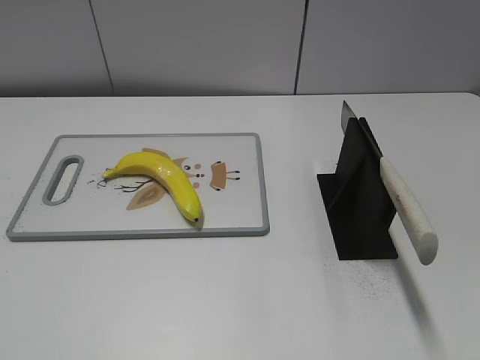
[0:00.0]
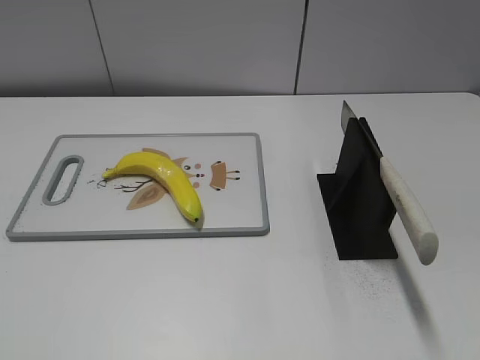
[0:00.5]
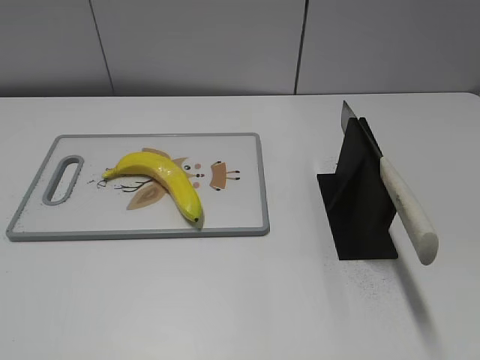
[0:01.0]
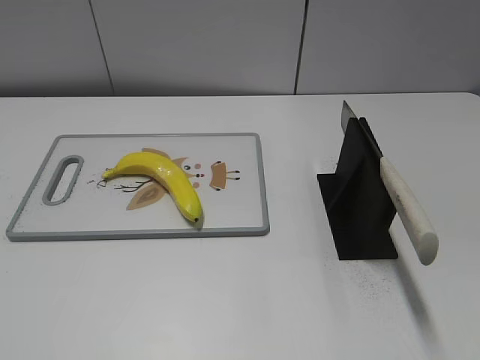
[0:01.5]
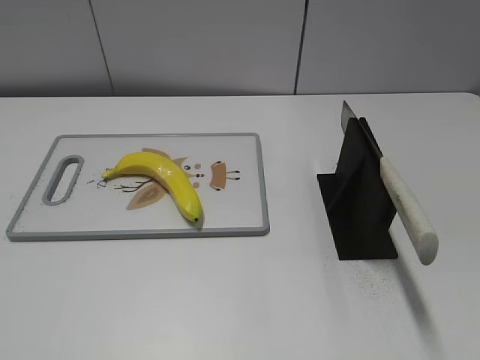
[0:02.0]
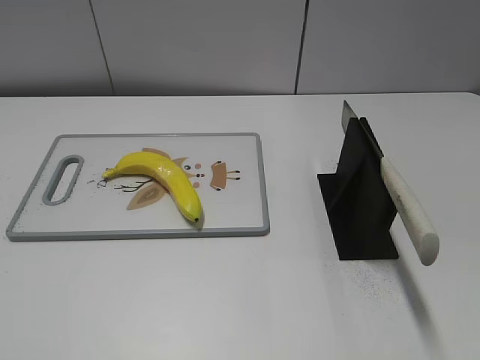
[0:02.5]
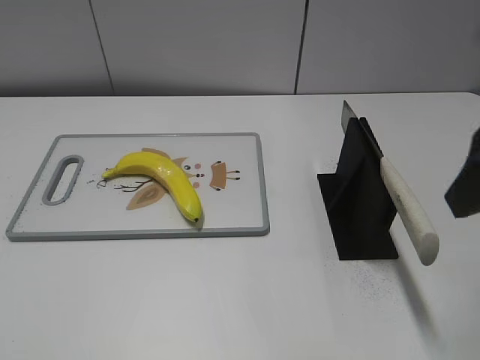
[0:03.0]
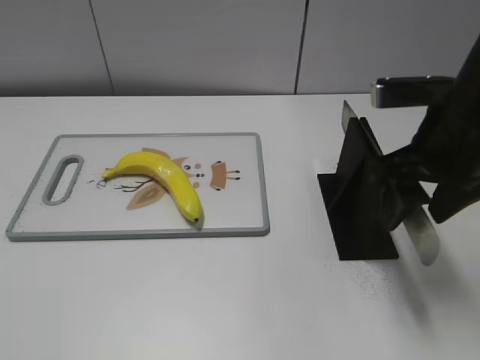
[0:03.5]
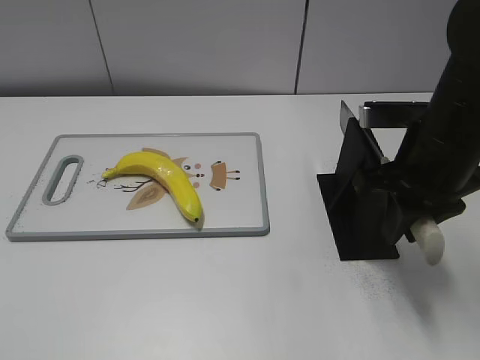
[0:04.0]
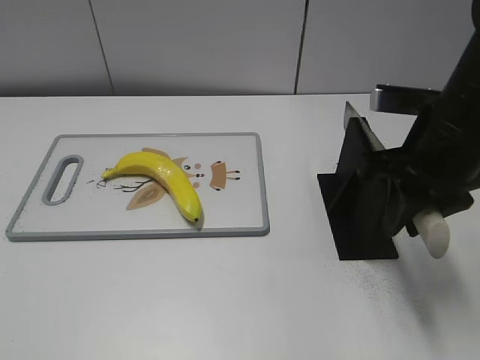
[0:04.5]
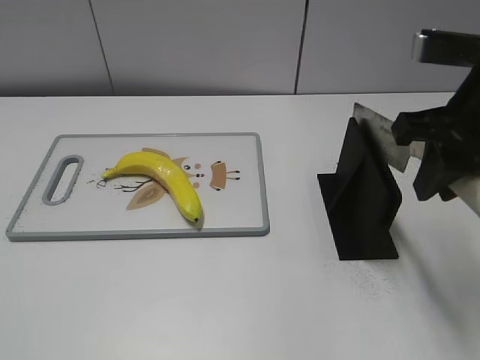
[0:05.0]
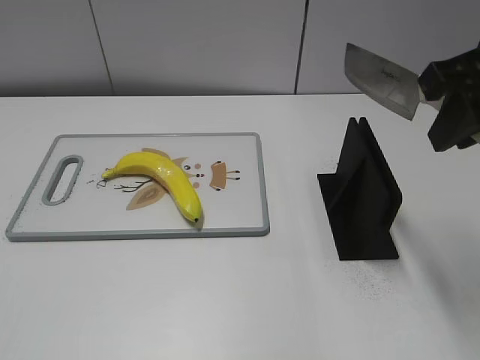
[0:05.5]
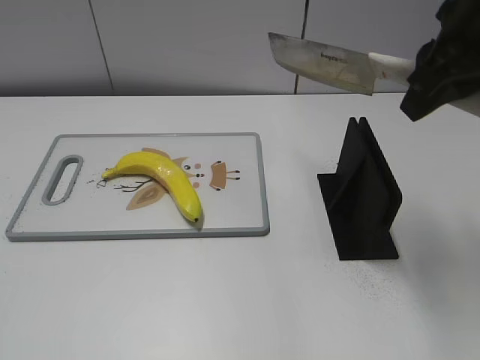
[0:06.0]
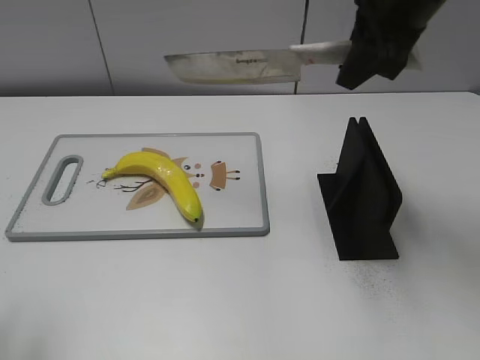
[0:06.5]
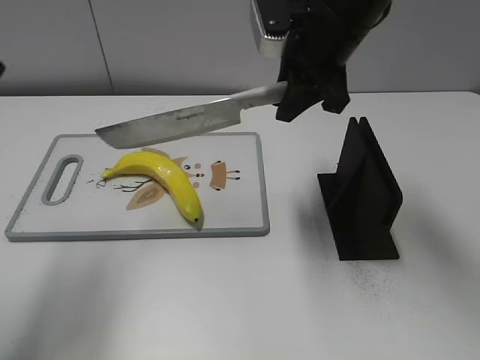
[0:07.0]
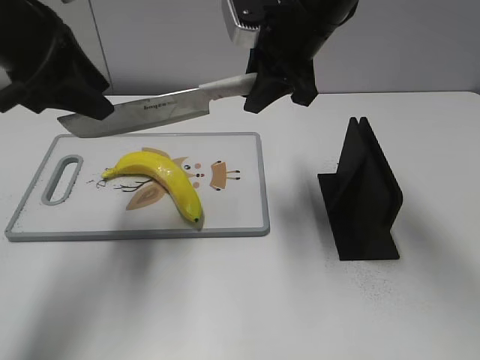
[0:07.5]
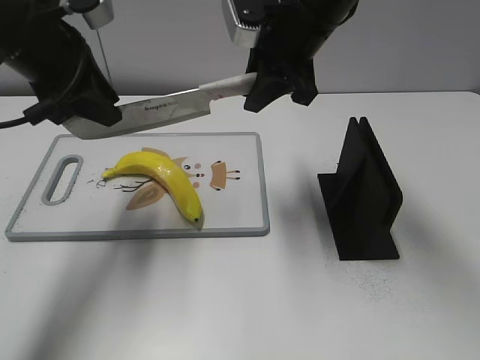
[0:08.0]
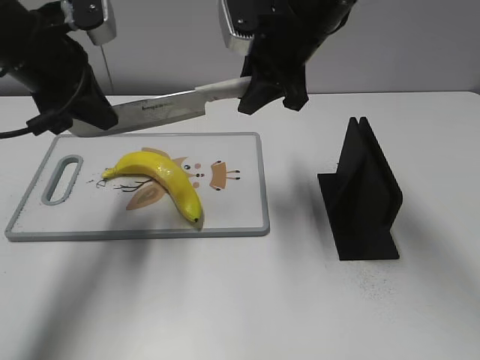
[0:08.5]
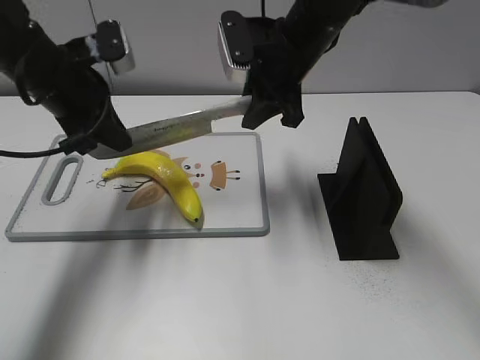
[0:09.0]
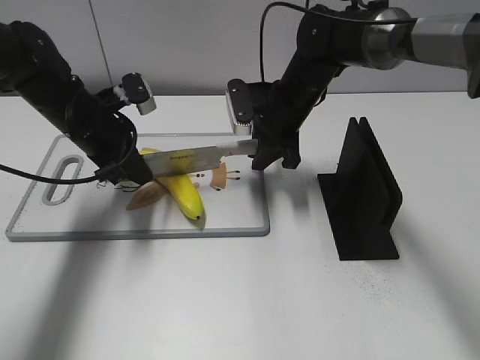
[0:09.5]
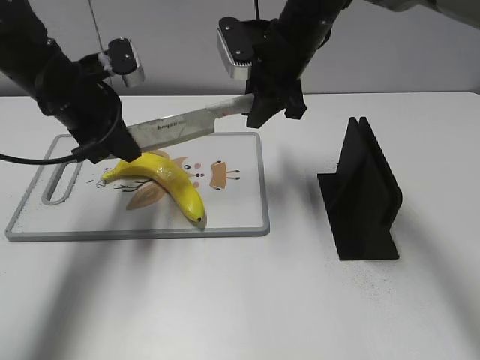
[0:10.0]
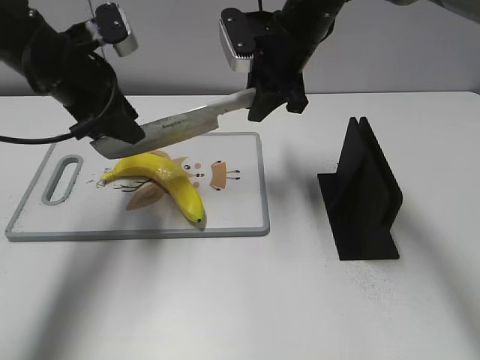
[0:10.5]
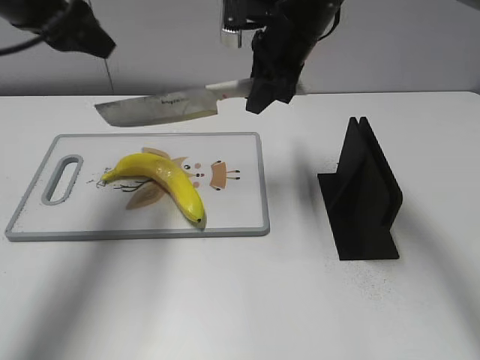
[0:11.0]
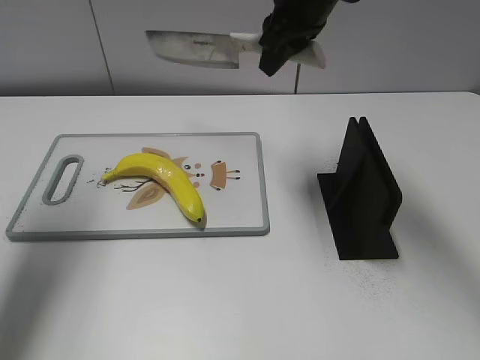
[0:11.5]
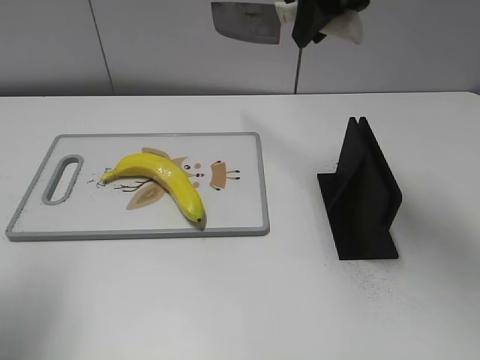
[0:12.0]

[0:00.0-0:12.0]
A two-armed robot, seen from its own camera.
Task of the whole recording: cut plastic banana.
Step, 0:00.0 to 0:05.0: Grab the knife handle with your right hand.
Step, 0:05.5 to 0:10.0: Lift the knife with your right hand.
Step, 0:10.5 to 0:11.5: Cut the banana with your right hand.
0:02.0 to 0:04.0: The right gripper goes roughly 30 cm forward and to the left, and closes up.
0:04.0 to 0:06.0: The right gripper moves upward, roughly 15 cm.
0:06.0 to 0:08.0: The right gripper travels to the left, forward and downward by about 20 cm; the left gripper travels forward by approximately 30 cm.
0:08.0 to 0:10.0: The grippers both shift downward by approximately 5 cm. The left gripper closes.
0:10.0 to 0:12.0: The right gripper is displaced upward by roughly 15 cm, while the left gripper travels backward, upward and to the left by roughly 25 cm, and opens its fingers.

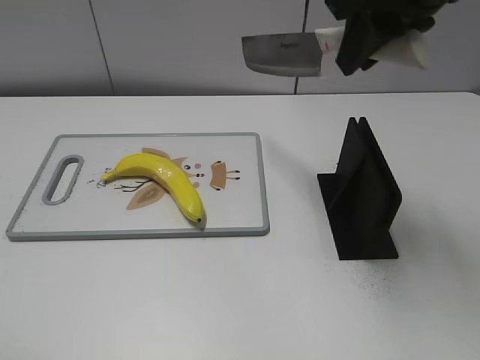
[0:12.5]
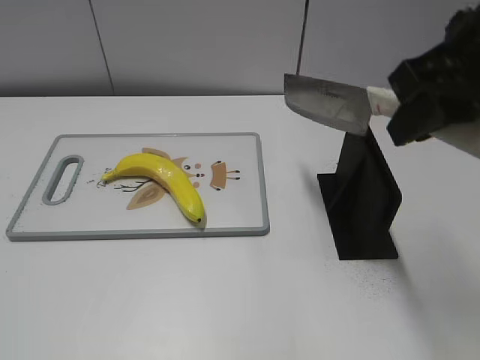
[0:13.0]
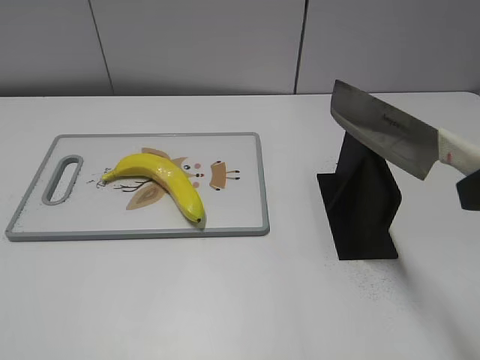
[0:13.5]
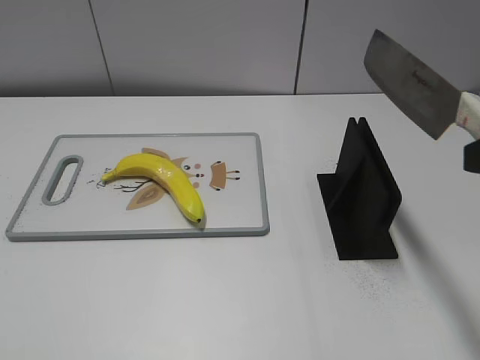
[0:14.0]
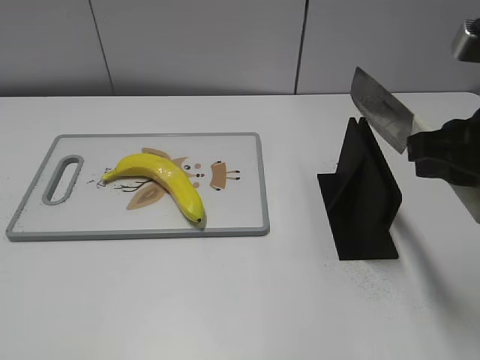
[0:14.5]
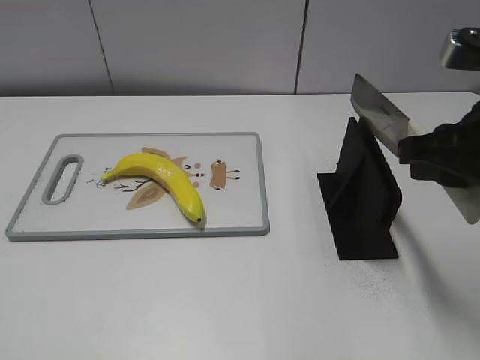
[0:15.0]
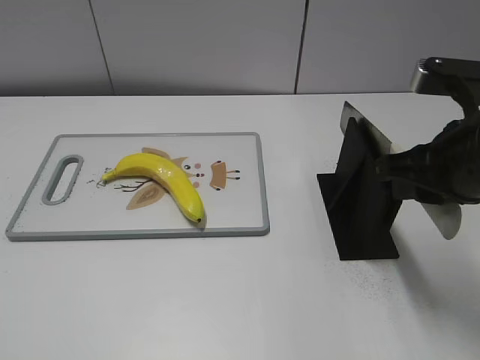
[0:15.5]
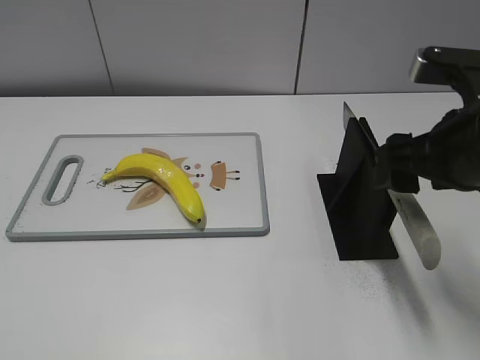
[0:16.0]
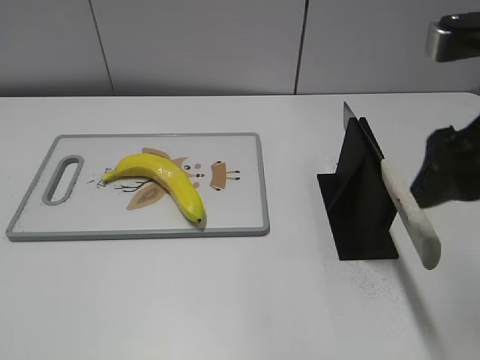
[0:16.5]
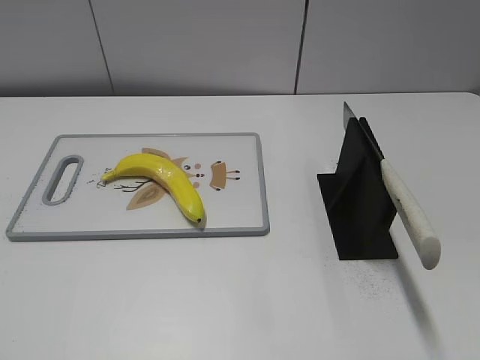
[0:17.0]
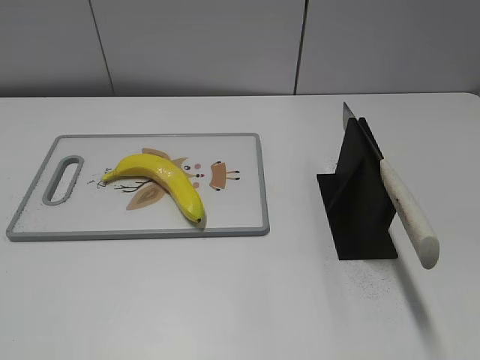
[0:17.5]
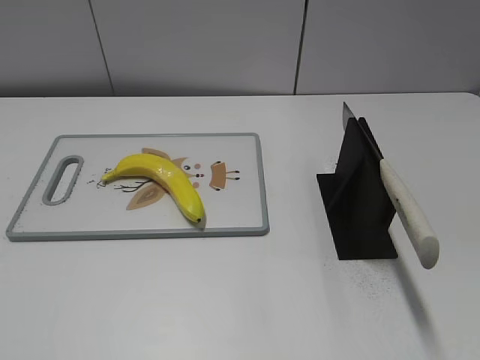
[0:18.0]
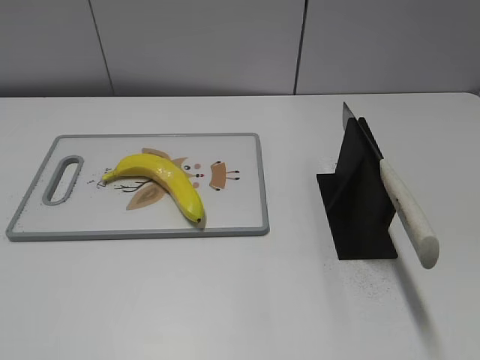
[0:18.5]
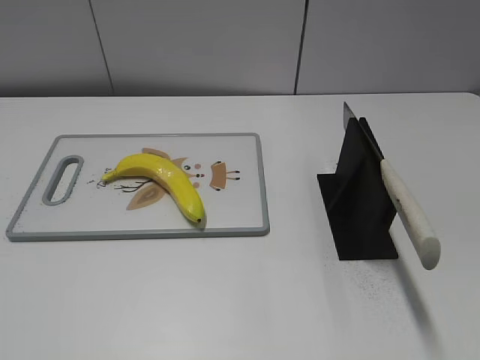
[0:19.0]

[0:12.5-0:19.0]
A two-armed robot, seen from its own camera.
Task of the whole recording: cut plastic banana.
Step, 0:13.0 to 0:19.0: Place the knife on the storage rack with your right hand.
0:12.5 to 0:14.5: The left gripper travels backward by approximately 10 cm; the right gripper is displaced backward, downward and to the right by approximately 15 cm.
0:14.5 to 0:17.0: The right gripper travels backward and upward by some 15 cm, and opens up.
